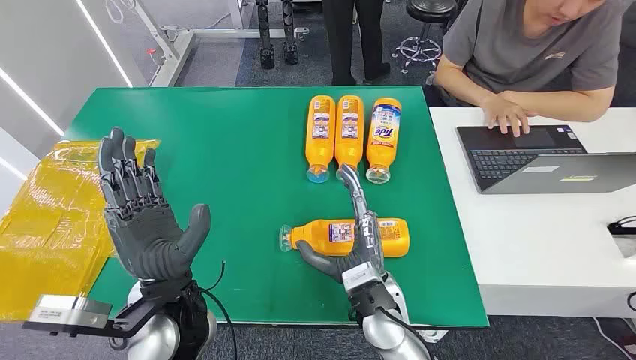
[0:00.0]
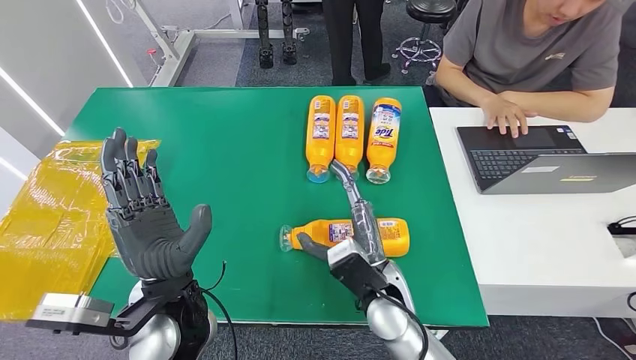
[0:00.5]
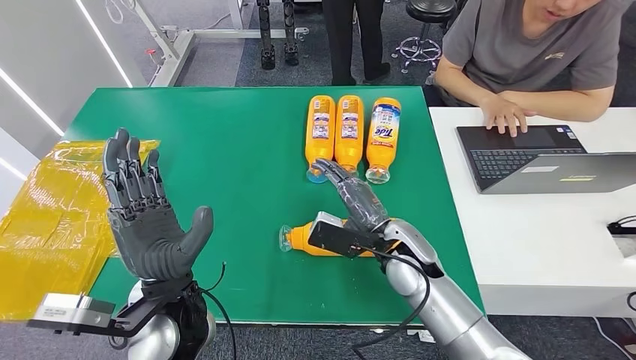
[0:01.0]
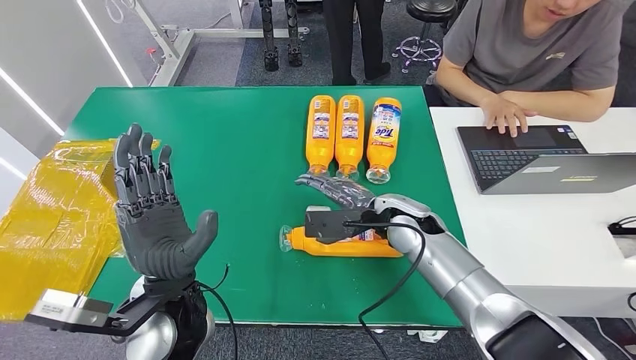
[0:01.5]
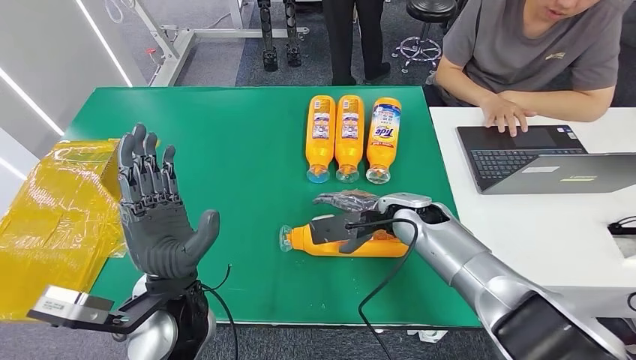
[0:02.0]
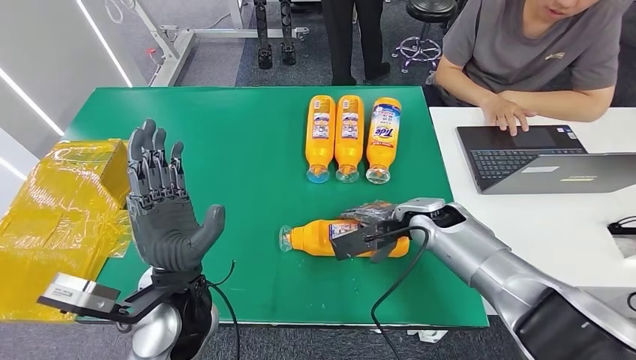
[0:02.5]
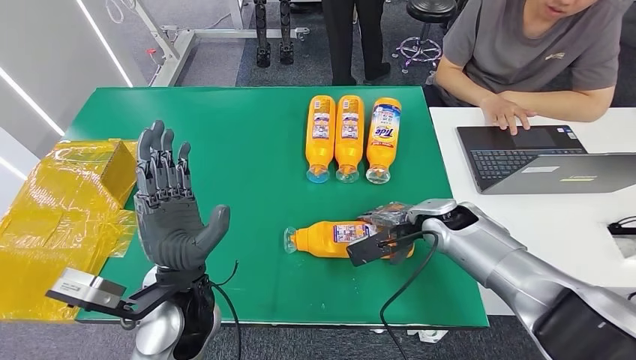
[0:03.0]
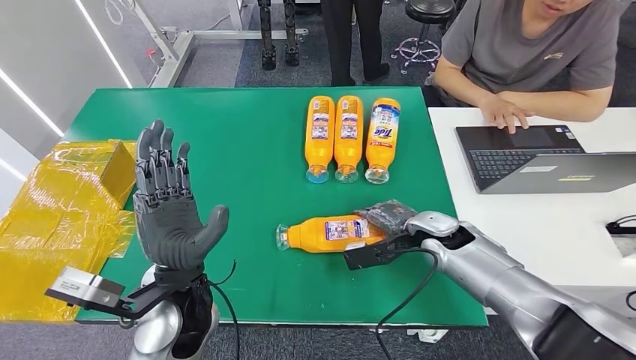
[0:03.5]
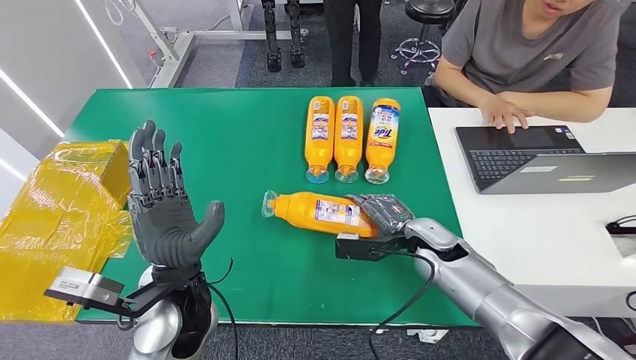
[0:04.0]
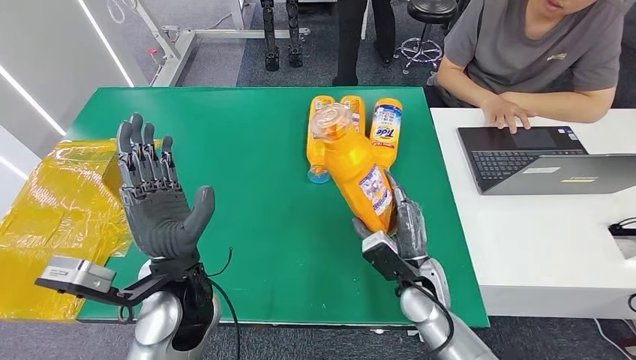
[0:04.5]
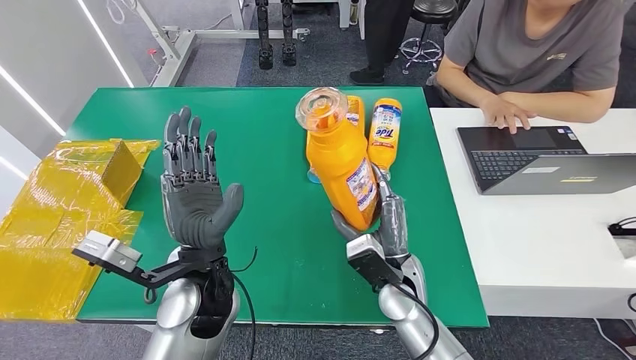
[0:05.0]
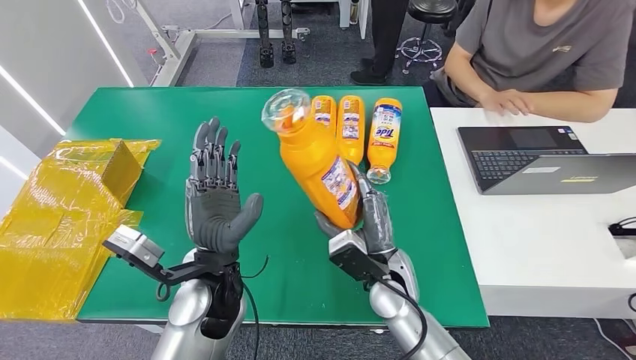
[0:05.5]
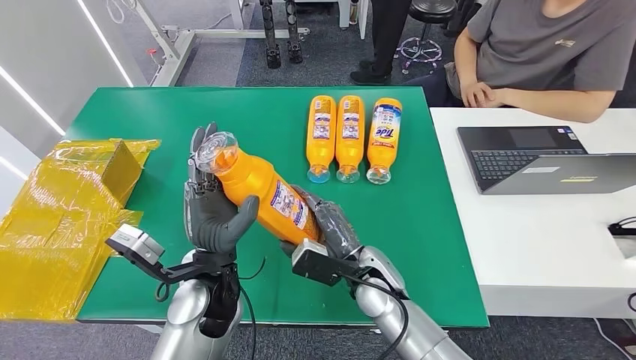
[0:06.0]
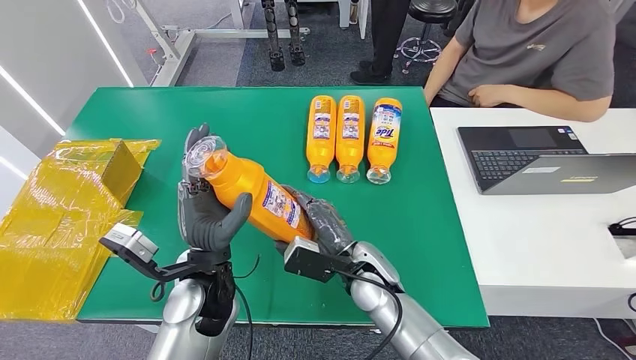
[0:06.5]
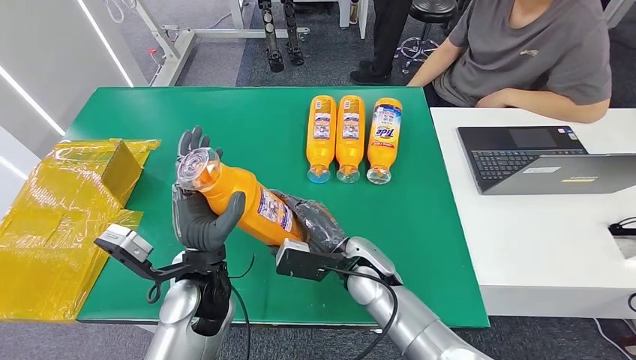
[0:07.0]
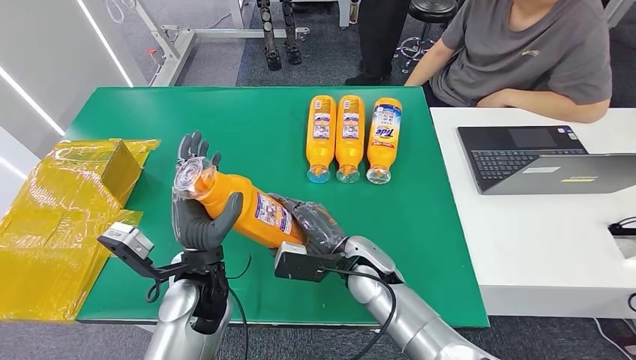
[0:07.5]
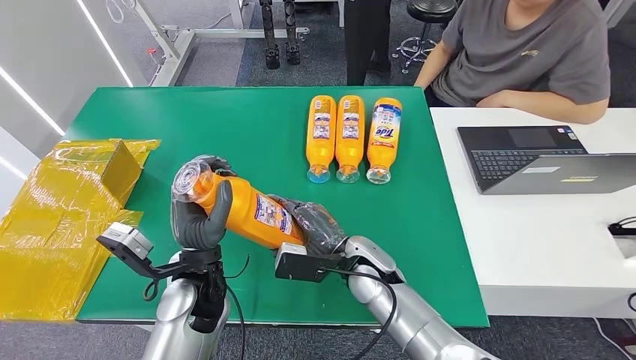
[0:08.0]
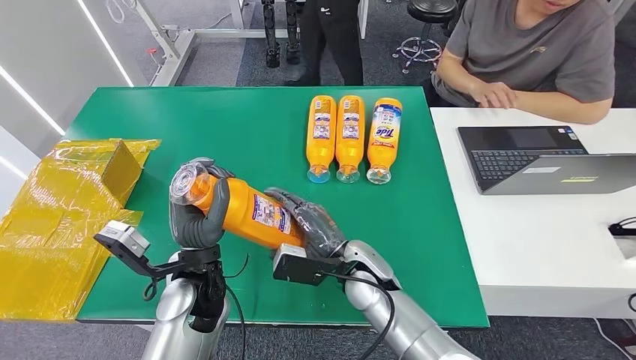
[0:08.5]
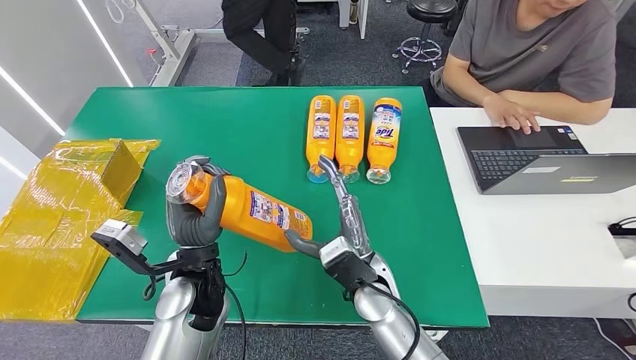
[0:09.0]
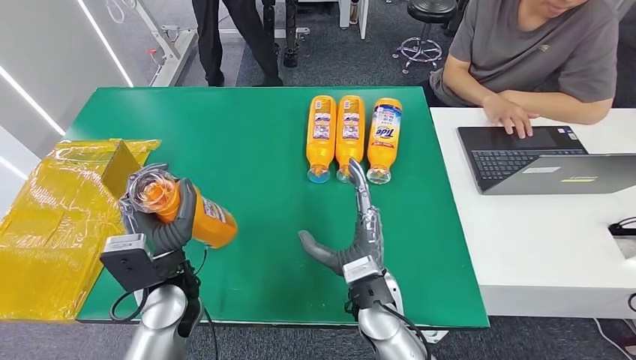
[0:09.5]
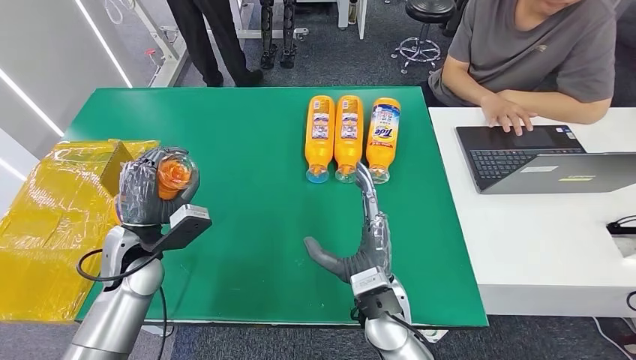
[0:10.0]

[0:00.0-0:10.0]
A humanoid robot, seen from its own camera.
Step, 0:00.0 to 0:04.5: Pick up the bottle from the table.
0:02.0 to 0:04.0: The right hand moves downward and to the right, approximately 10 cm.
0:06.0 to 0:08.0: The hands stay close to where they were, moving slightly.

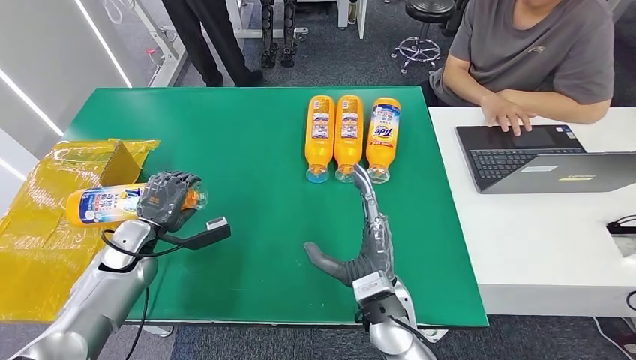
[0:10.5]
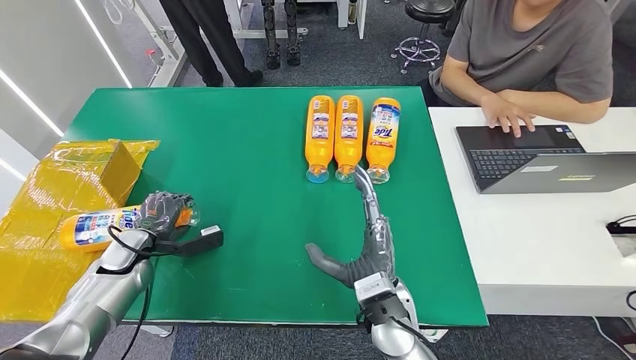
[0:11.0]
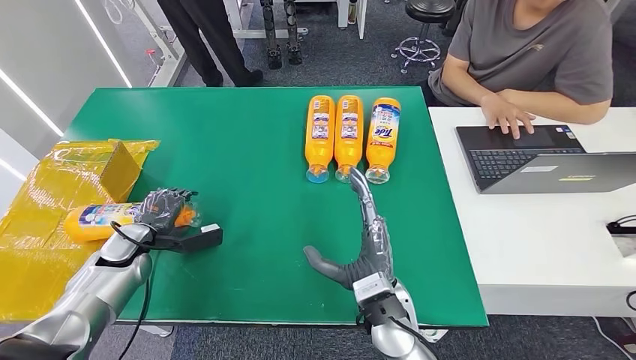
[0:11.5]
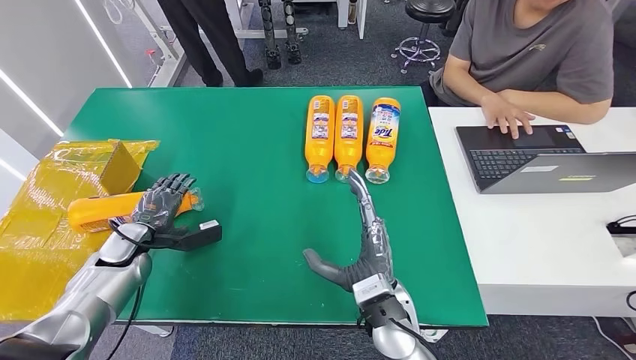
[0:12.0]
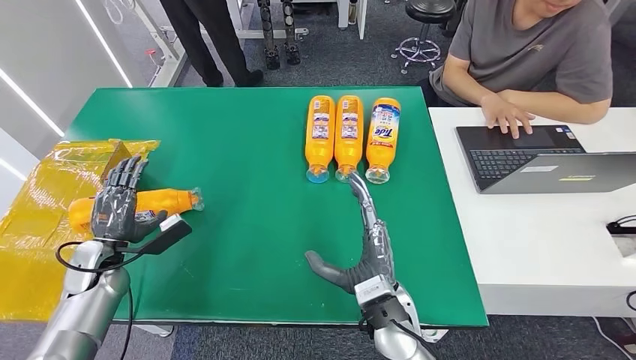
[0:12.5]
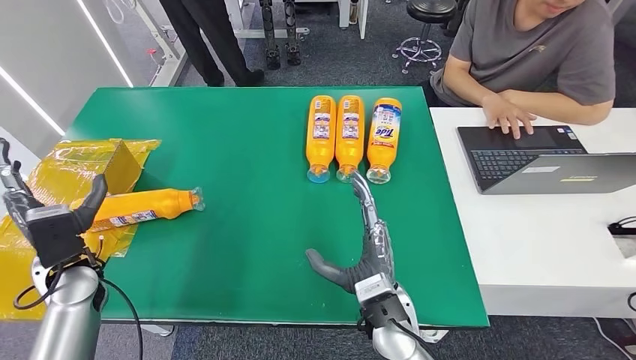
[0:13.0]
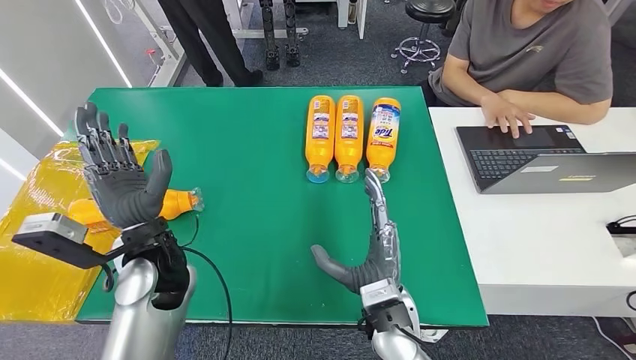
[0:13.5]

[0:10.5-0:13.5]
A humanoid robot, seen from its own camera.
Step, 0:10.5 to 0:13.5: Turn the bottle to the front side.
0:12.0 to 0:13.5: The left hand is displaced to the right, upward and backward by about 20 cm.
